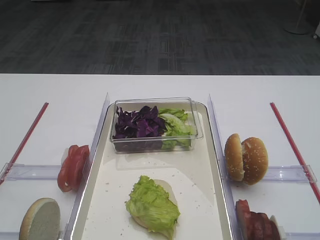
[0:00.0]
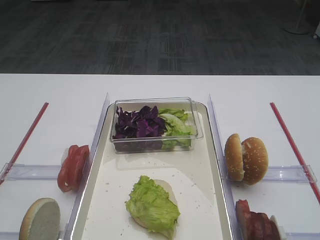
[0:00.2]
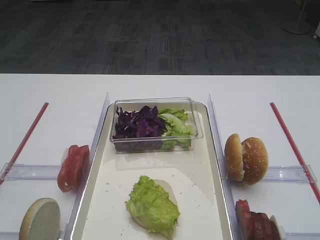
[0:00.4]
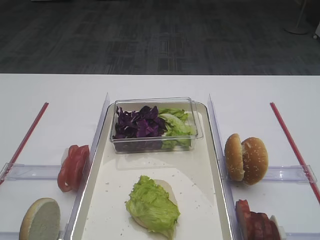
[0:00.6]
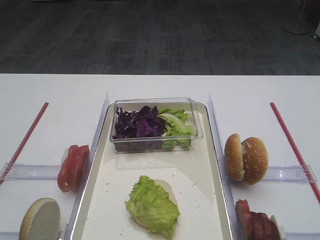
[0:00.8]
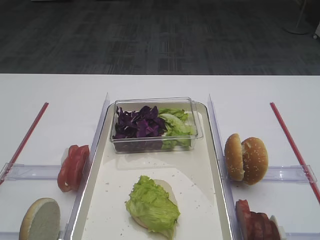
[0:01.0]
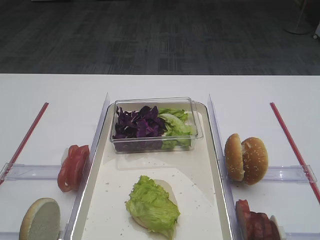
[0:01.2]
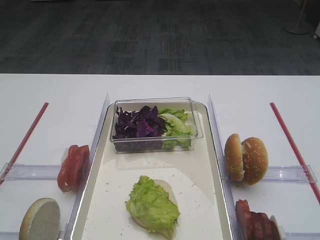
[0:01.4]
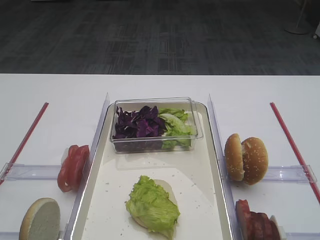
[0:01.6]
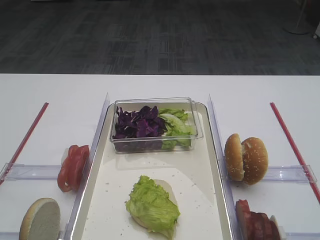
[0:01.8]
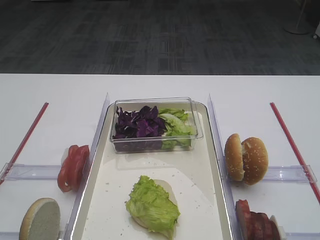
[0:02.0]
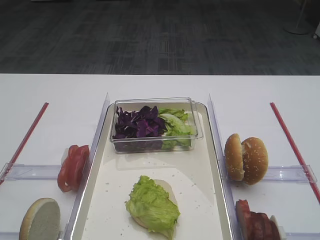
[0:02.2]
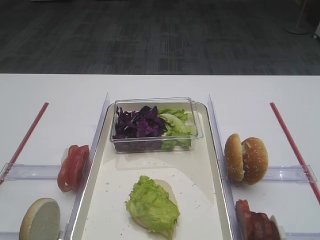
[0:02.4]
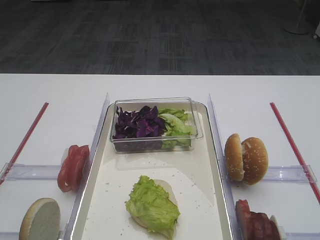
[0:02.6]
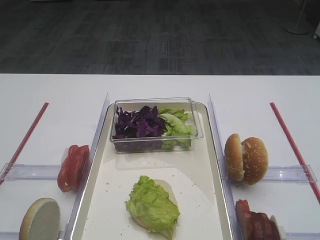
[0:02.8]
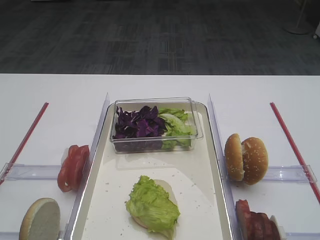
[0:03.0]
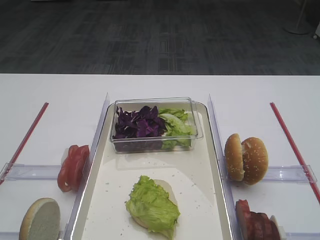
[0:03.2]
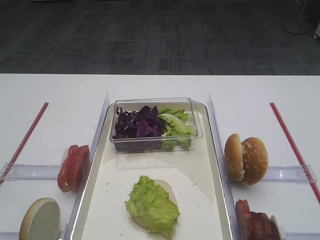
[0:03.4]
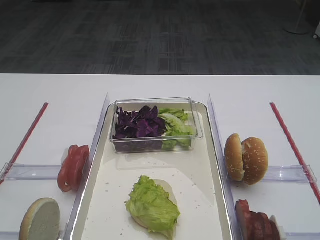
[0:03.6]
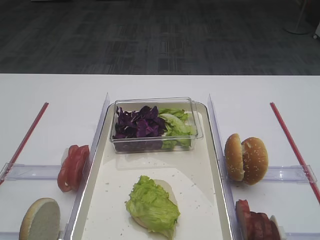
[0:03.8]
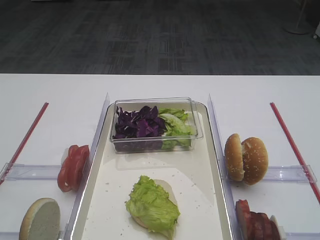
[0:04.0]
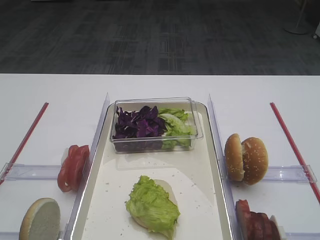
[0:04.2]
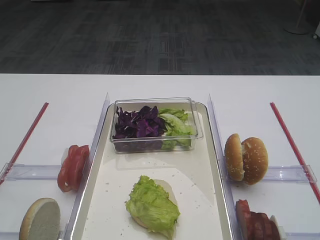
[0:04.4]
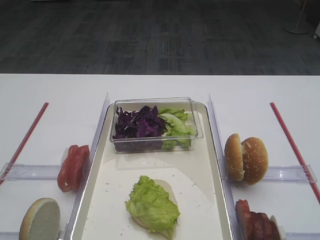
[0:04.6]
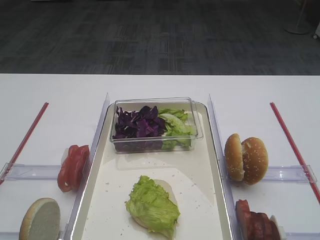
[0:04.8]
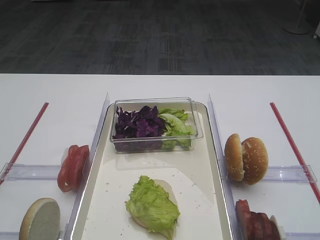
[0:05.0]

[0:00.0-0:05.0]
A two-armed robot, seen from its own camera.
0:00.0 to 0:05.0: Both grippers stay about where they are.

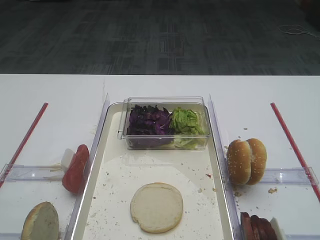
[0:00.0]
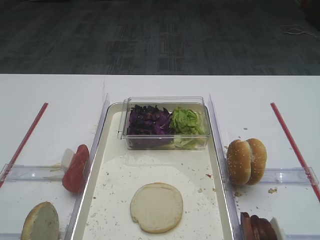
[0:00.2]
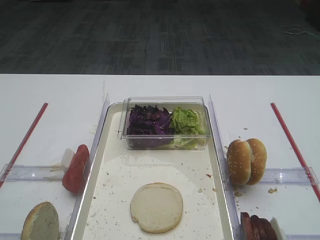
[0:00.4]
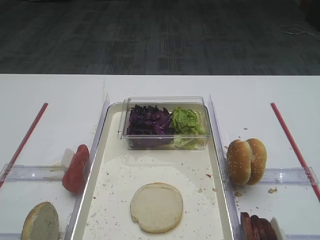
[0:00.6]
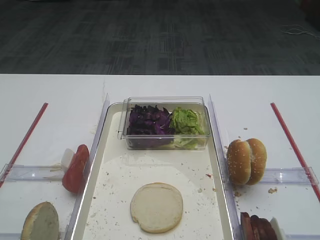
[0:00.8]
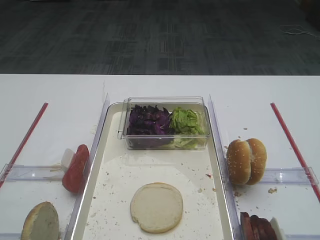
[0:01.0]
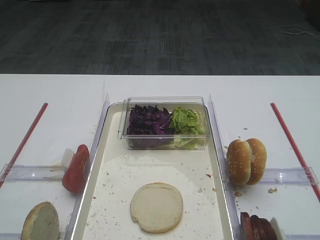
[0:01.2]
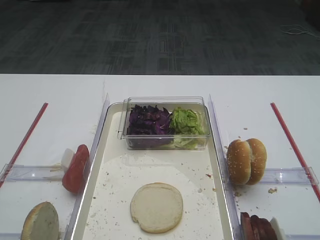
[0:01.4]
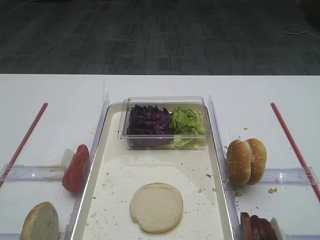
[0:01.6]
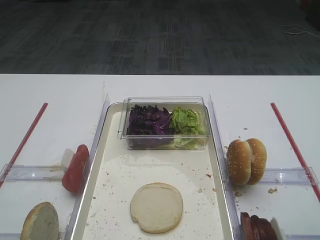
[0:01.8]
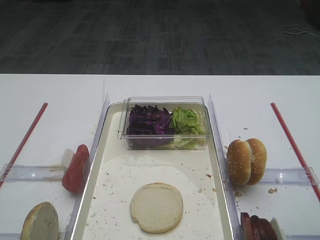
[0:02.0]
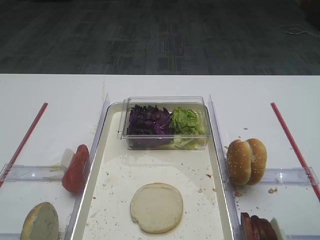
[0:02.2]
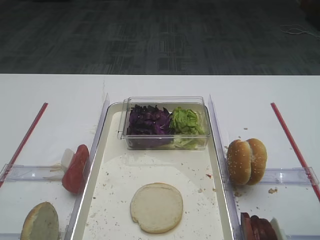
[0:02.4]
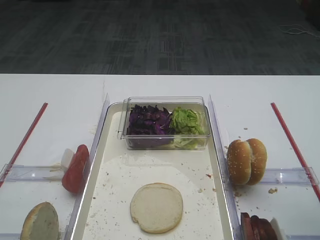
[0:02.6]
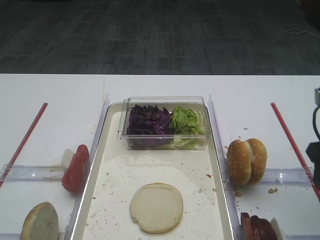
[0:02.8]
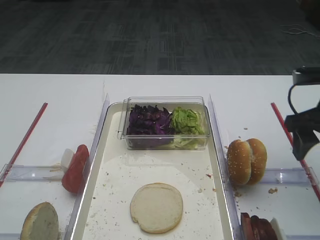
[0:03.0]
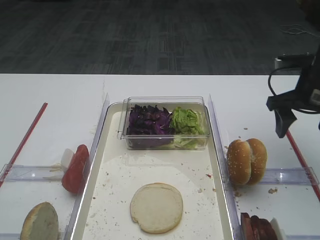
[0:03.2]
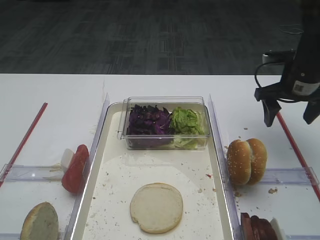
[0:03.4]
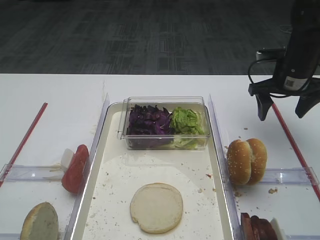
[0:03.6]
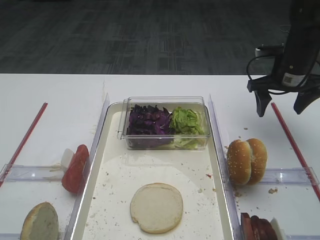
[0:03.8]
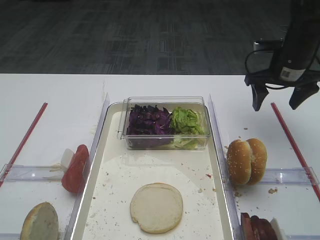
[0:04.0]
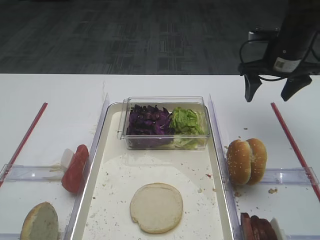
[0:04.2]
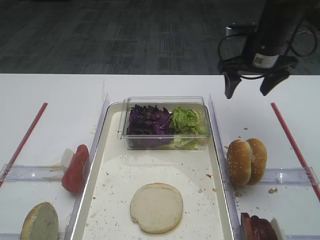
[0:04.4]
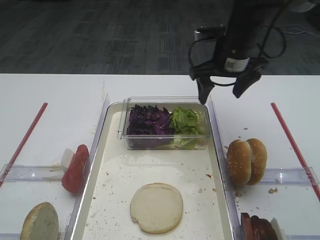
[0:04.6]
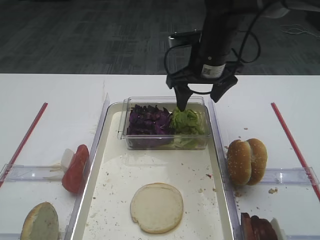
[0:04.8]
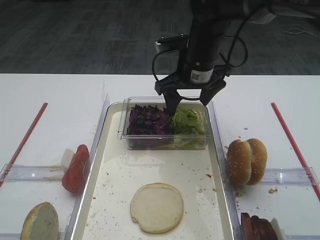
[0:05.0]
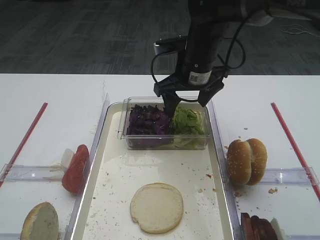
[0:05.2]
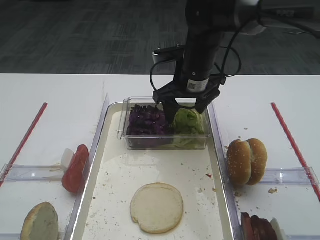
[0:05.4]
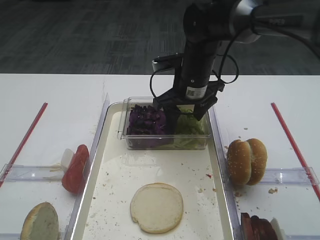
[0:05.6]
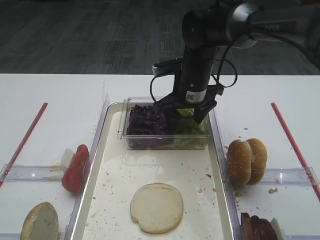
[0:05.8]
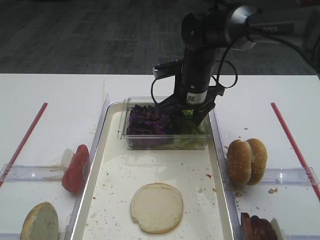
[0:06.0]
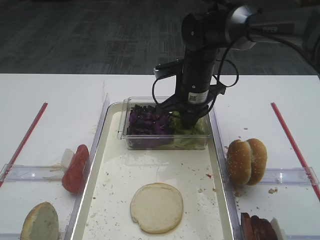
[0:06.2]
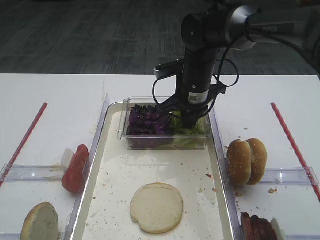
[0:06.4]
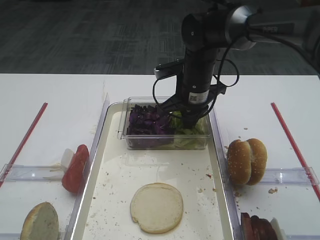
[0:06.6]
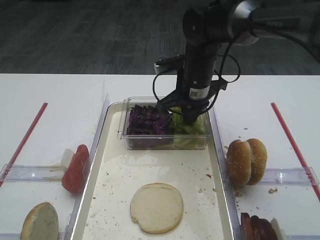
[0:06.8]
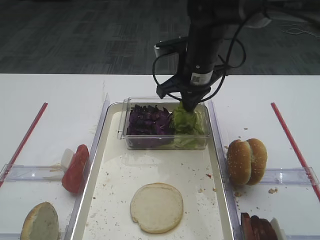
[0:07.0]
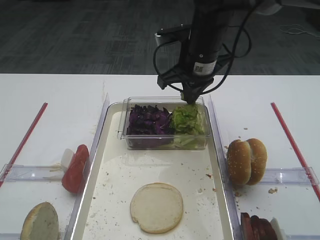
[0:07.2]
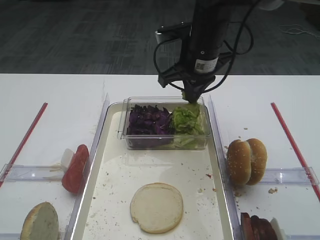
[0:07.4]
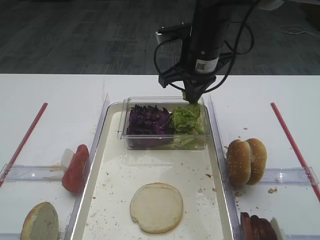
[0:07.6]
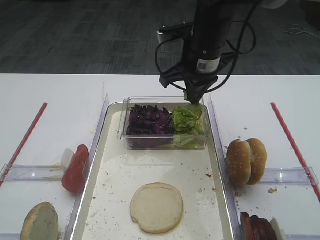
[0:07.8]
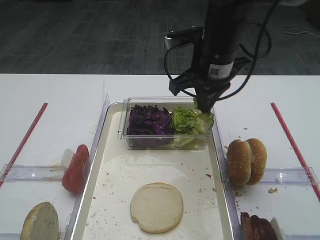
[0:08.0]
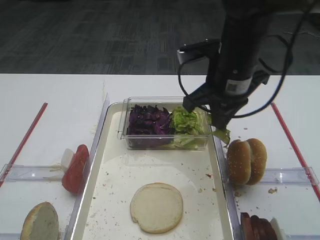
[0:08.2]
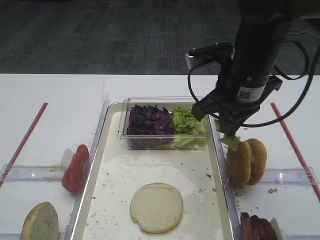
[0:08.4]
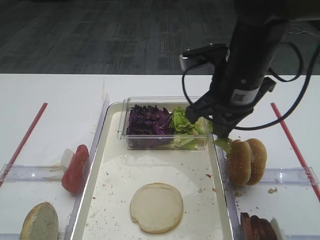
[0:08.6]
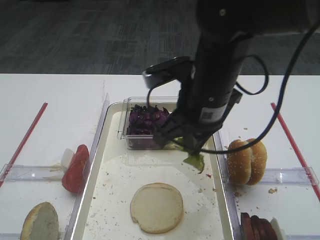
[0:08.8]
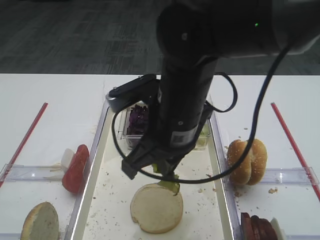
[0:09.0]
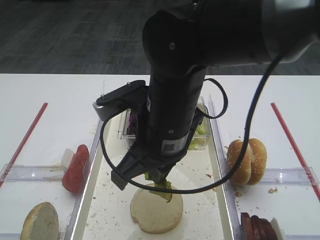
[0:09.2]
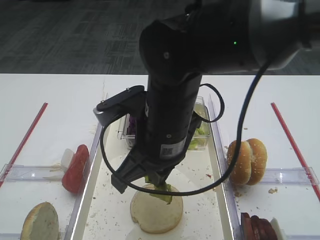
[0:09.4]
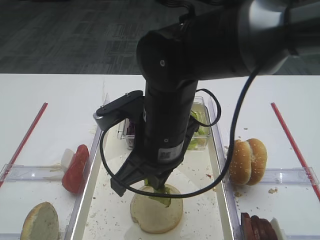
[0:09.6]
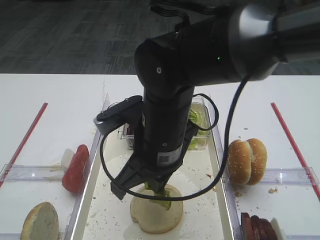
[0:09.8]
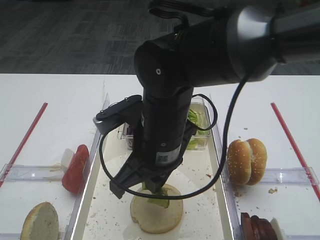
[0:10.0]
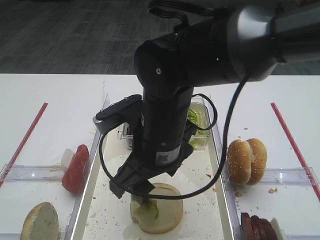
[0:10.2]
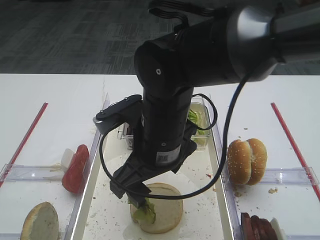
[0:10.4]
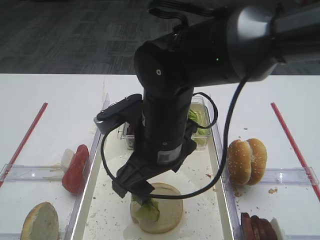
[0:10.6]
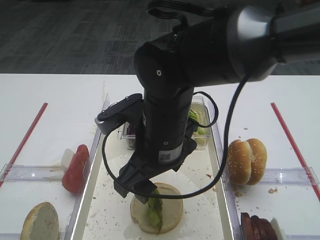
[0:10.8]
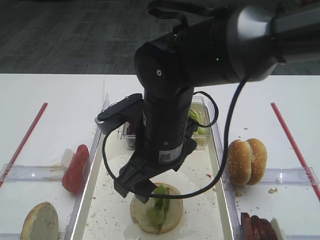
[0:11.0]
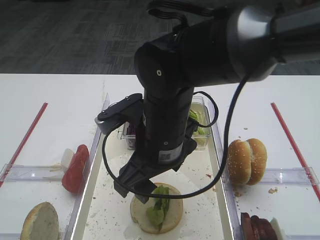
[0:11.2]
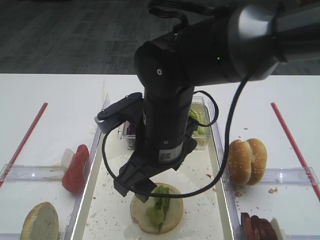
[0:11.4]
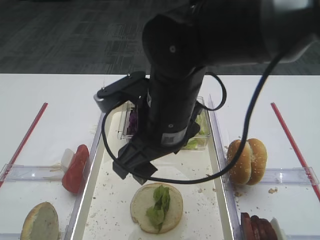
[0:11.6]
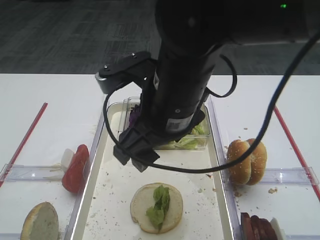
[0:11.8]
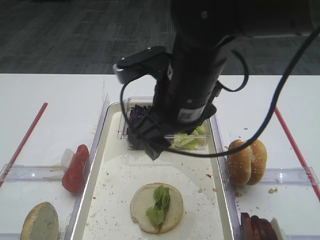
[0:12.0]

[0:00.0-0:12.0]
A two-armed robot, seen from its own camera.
Step, 0:00.0 to 0:07.2: Pick up the lettuce leaf with the right gripper.
Step, 0:07.4 to 0:11.8: Place the lettuce leaf on the bread slice with the right gripper.
0:01.6 to 0:03.0: The right gripper shifts about 20 cm forward.
0:03.0 to 0:04.4: The right gripper shifts about 15 cm forward and to the left.
0:04.4 to 0:06.0: The right gripper heads to the left and downward, covering roughly 15 cm.
0:06.0 to 0:07.6: The right gripper shifts roughly 10 cm upward, and closes up.
0:07.6 to 0:09.0: The right gripper travels backward by approximately 15 cm.
0:09.0 to 0:10.4: The right gripper opens its fingers.
0:10.4 to 0:12.0: The right gripper travels upward by about 5 cm.

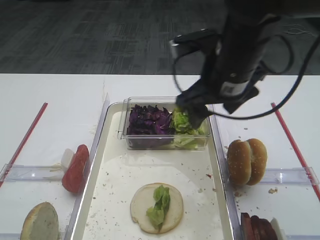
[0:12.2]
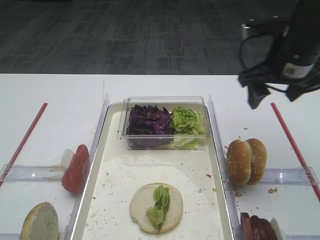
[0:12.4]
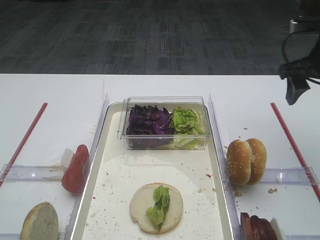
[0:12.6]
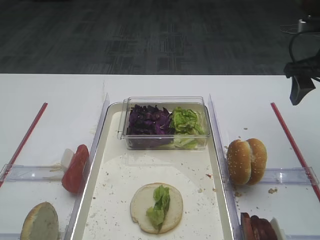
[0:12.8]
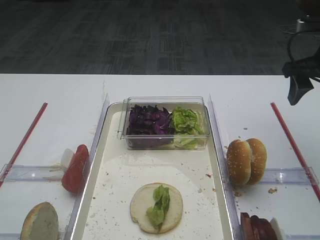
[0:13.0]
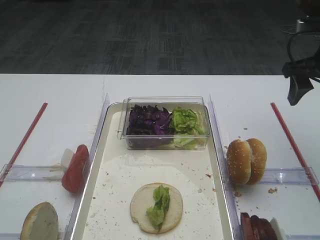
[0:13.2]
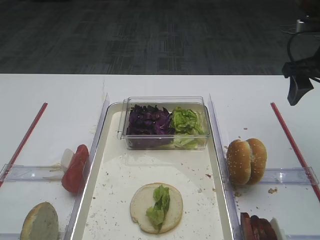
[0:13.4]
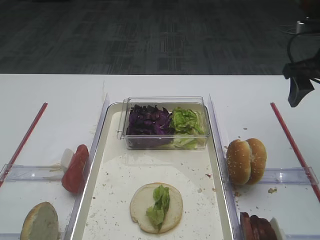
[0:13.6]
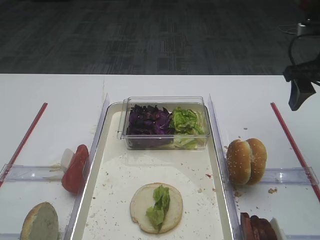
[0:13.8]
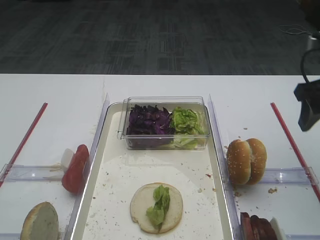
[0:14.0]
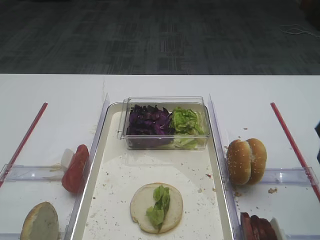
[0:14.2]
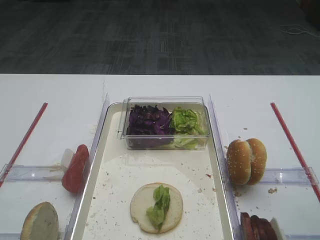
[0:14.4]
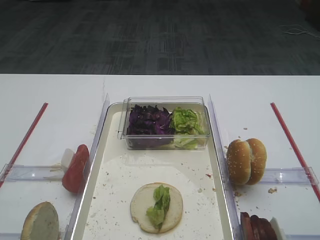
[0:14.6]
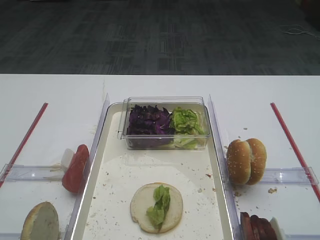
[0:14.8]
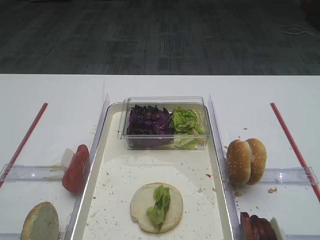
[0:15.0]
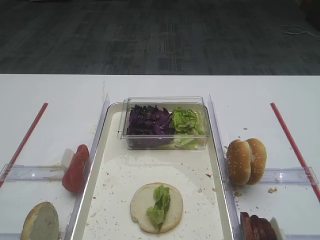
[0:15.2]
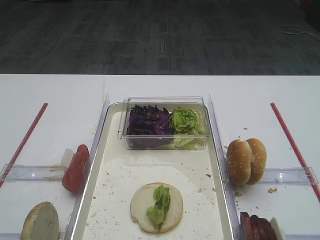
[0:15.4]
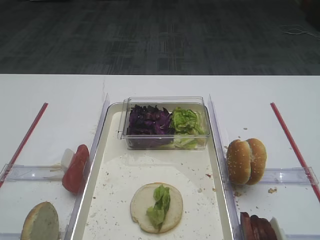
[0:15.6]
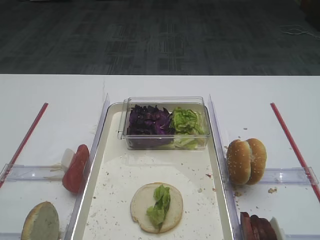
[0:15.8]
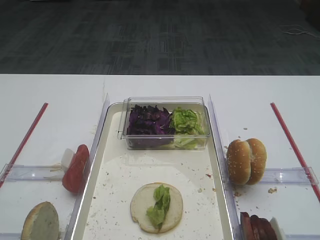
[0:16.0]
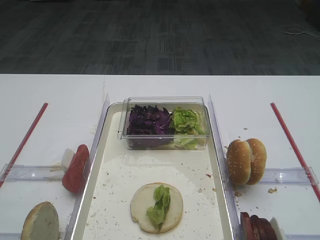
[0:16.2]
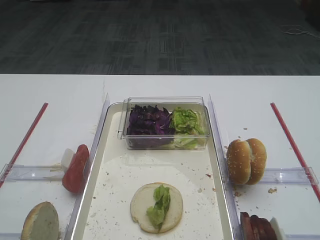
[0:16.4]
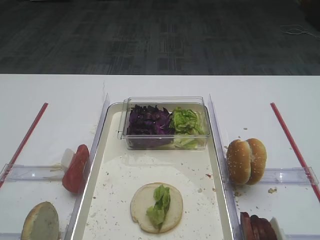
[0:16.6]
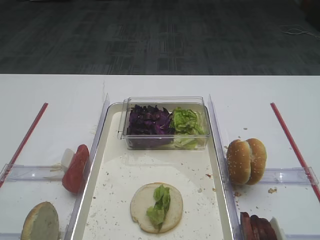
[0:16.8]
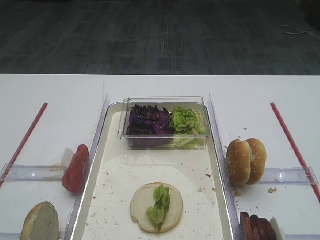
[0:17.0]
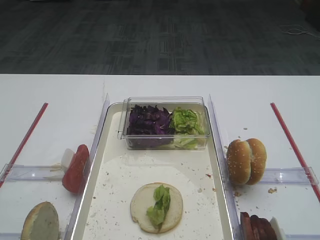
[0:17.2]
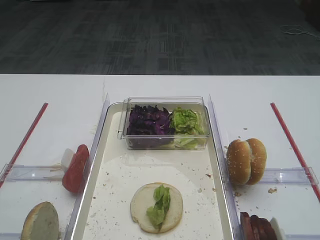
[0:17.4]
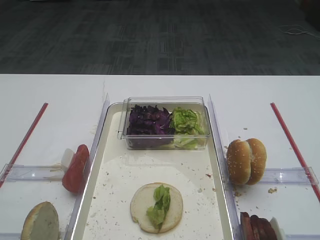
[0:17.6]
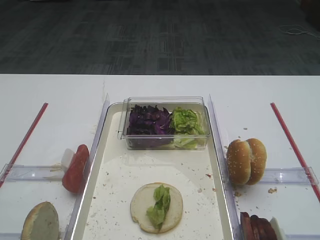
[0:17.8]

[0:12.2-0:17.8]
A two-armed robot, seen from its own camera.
0:12.2 to 0:13.6: The right gripper moves to the right, approximately 15 cm.
0:13.6 to 0:15.0: The right gripper is displaced backward by some 30 cm.
0:16.4 to 0:17.8: Both grippers stay about where they are.
